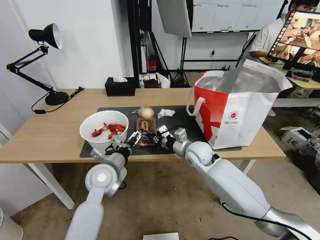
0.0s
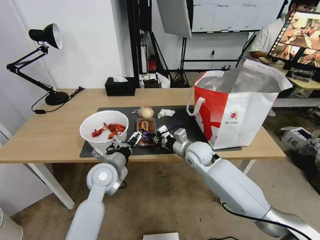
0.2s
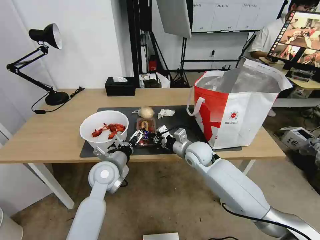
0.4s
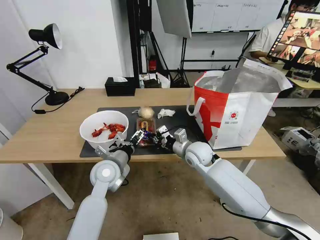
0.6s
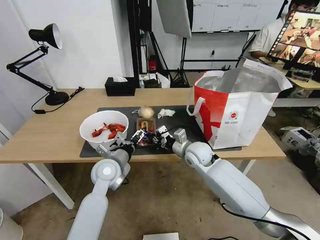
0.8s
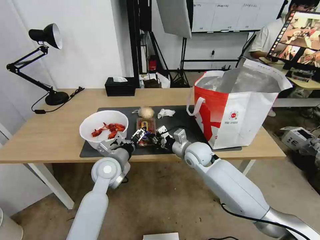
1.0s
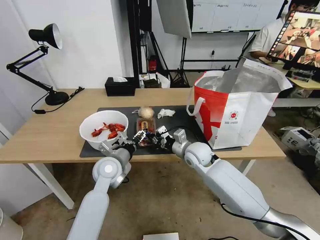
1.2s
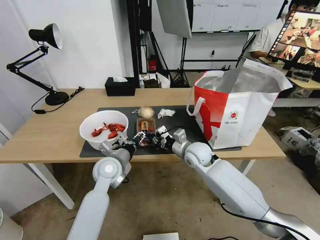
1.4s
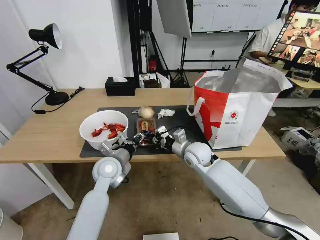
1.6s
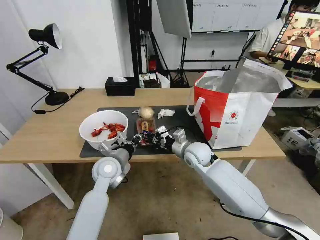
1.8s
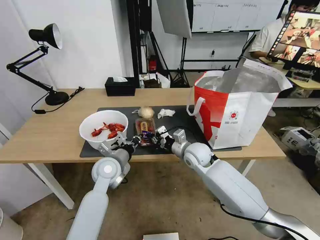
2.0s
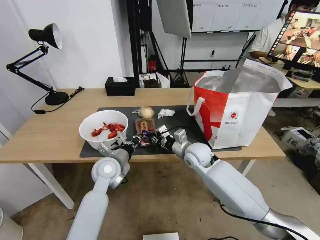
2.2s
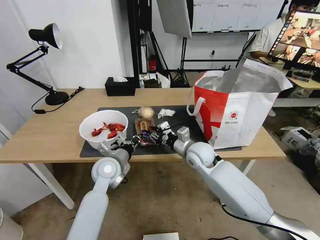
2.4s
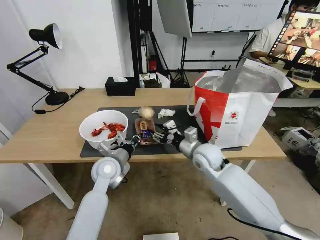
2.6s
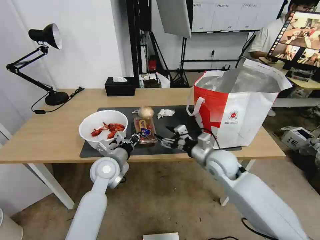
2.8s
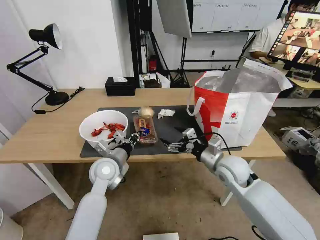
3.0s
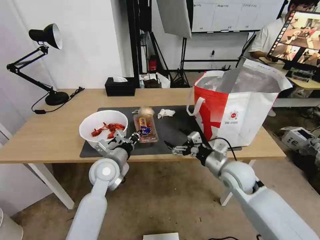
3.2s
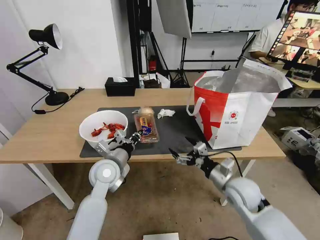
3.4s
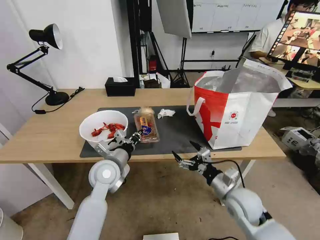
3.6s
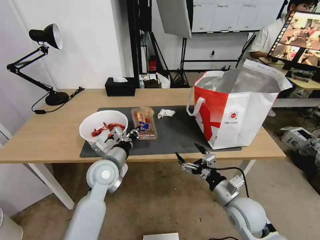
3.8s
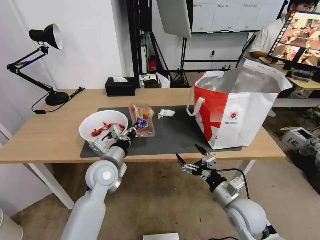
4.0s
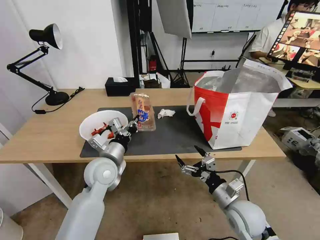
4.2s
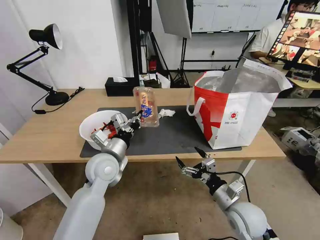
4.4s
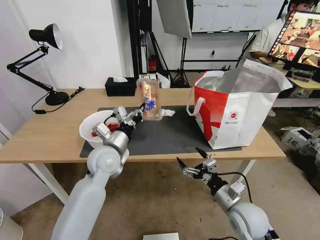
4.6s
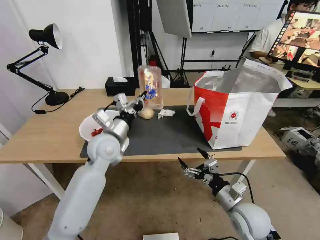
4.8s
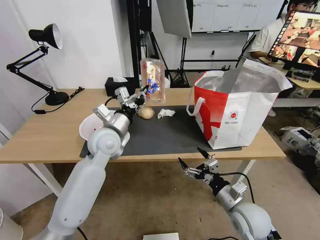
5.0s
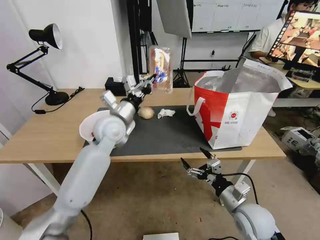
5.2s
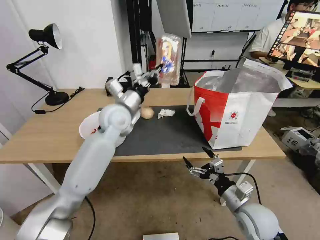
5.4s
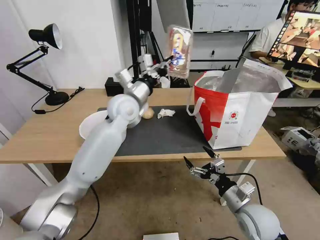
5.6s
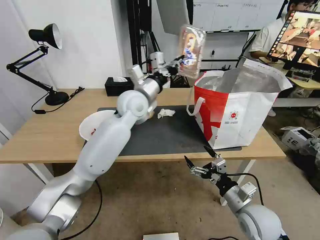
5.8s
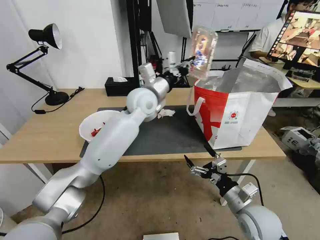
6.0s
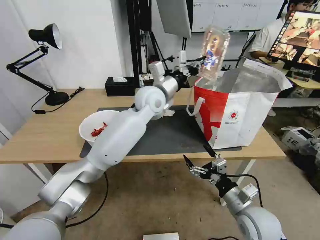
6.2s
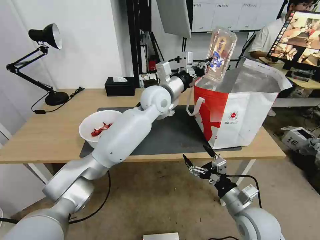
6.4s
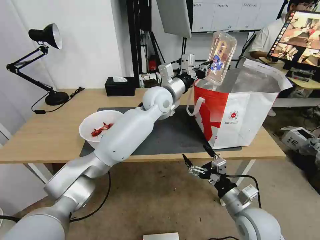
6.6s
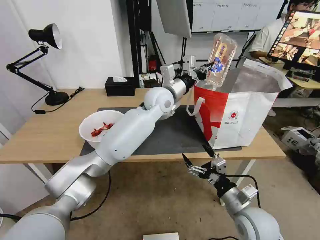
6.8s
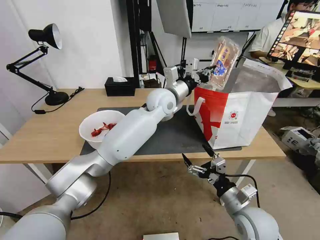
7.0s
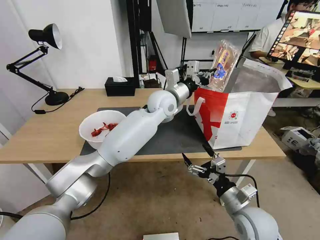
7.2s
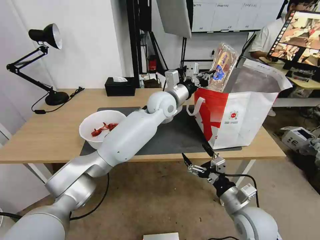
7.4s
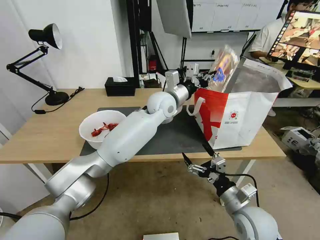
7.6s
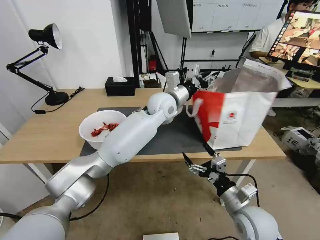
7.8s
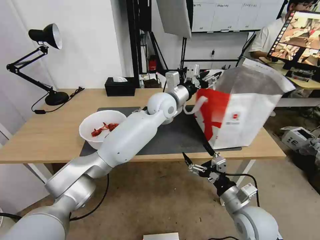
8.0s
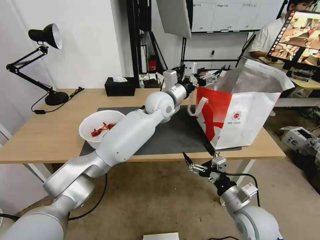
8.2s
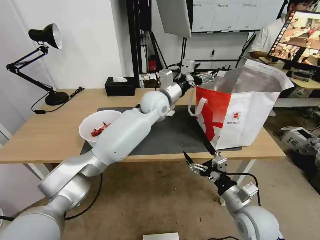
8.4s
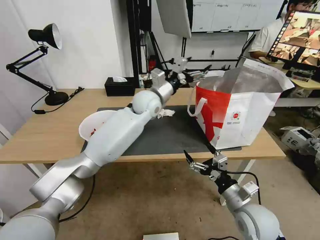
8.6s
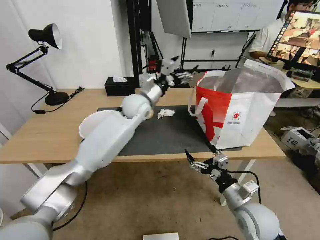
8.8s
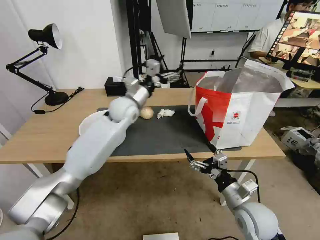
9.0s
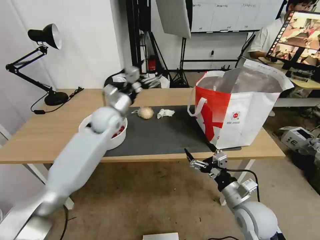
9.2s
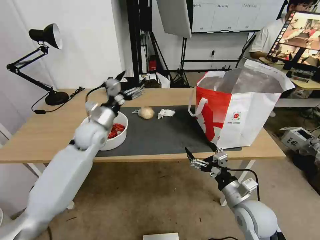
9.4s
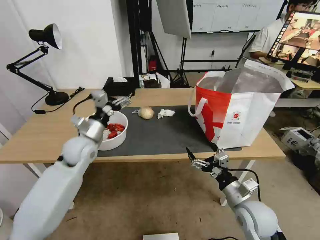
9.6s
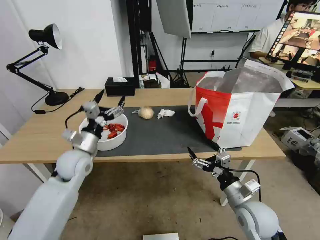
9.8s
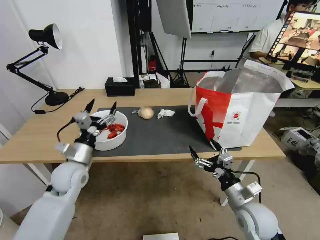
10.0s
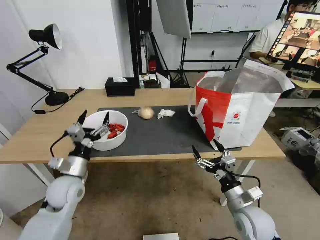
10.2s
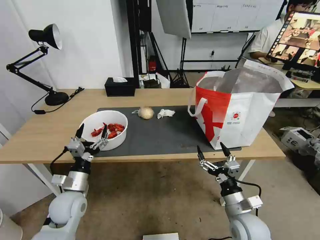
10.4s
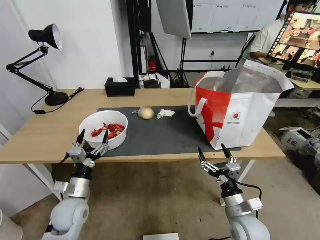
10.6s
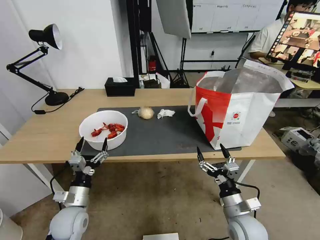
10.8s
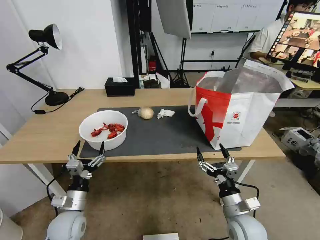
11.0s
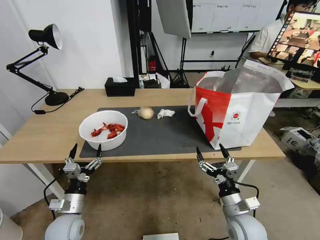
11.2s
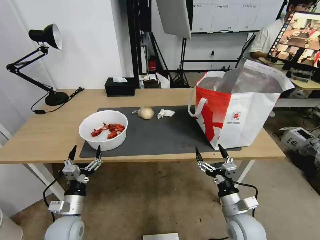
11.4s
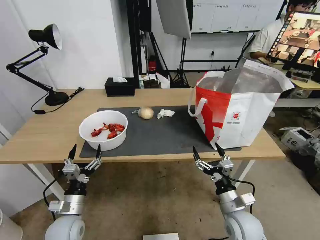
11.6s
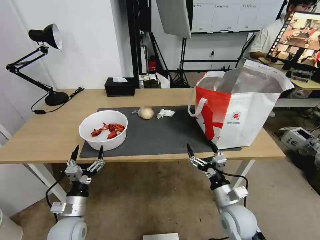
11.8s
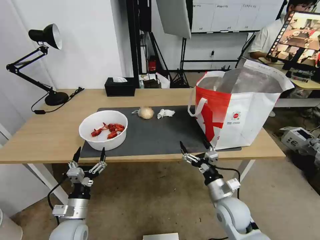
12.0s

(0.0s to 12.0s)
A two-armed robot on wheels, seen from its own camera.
Task of the whole recording: Pick up the trash from the table and place it into the takeout bag.
0.0s - 1.6s: The left gripper closes.
1.6s - 3.0s: The left gripper closes. Meanwhile the right gripper heads to the right and backward, covering roughly 10 cm, and opens up.
3.0s - 4.4s: The right gripper heads backward and downward, covering about 15 cm.
4.4s - 6.0s: The left gripper moves forward, upward and to the right, approximately 25 cm.
6.0s - 7.6s: The left gripper heads to the right, covering approximately 5 cm.
7.6s - 9.0s: The left gripper goes roughly 10 cm to the left, and opens.
9.0s - 10.4s: The left gripper is displaced backward, to the left and downward by some 35 cm.
10.4s - 12.0s: The left gripper goes some 10 cm backward and downward.

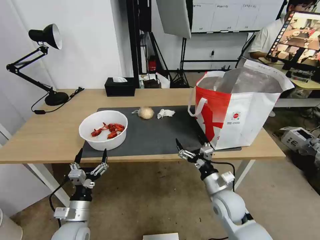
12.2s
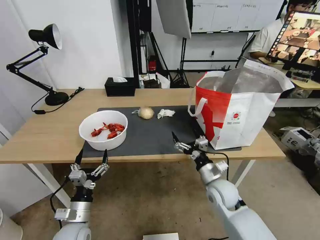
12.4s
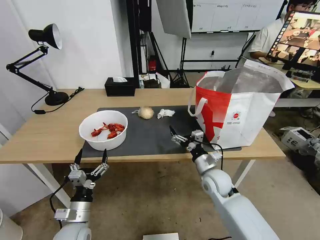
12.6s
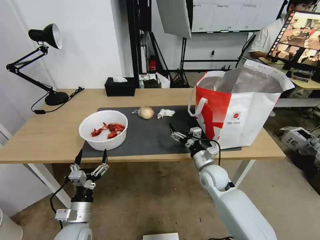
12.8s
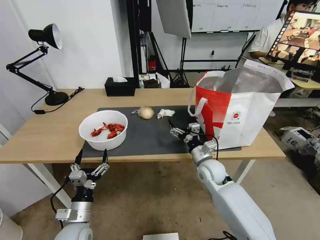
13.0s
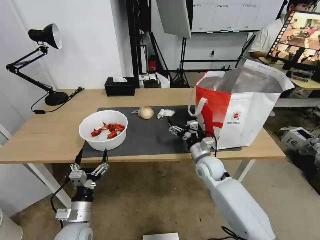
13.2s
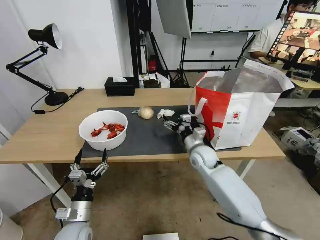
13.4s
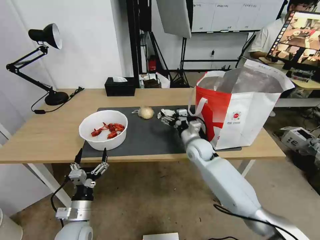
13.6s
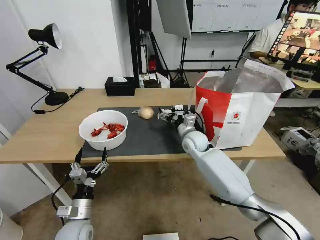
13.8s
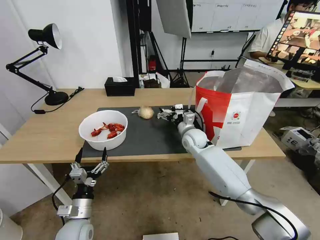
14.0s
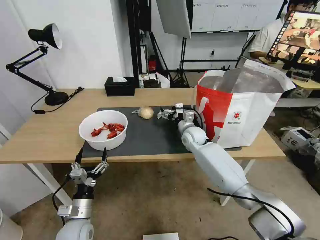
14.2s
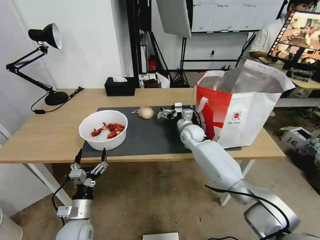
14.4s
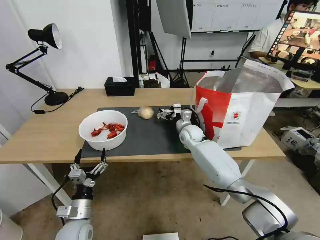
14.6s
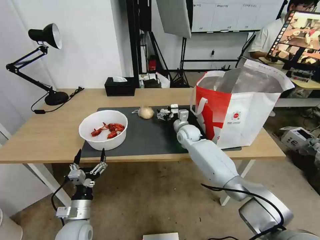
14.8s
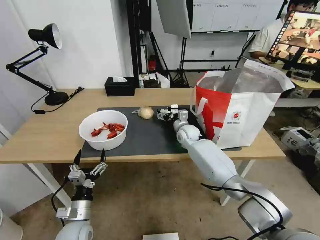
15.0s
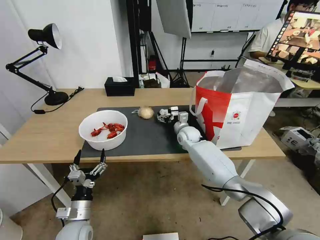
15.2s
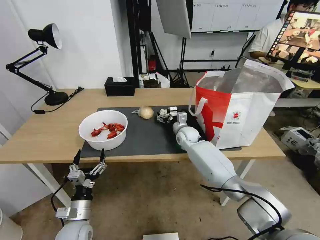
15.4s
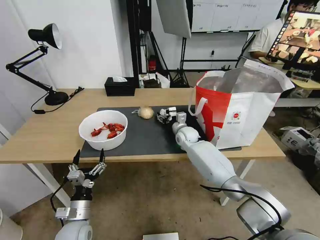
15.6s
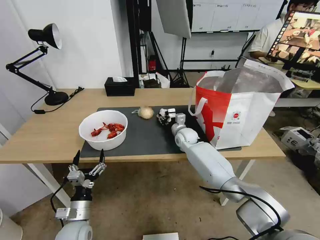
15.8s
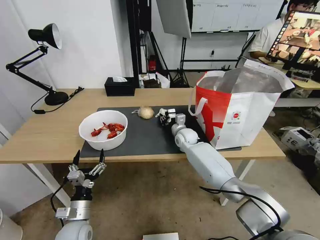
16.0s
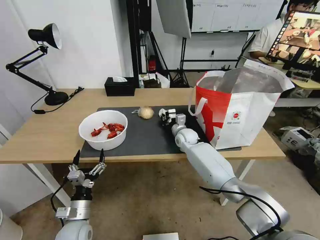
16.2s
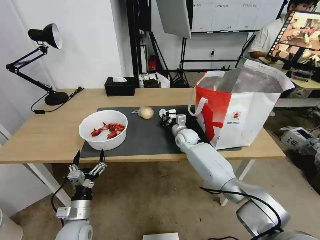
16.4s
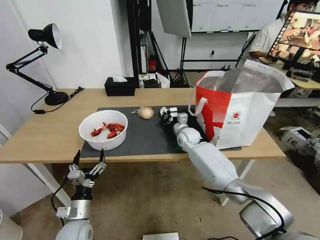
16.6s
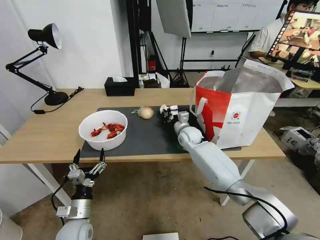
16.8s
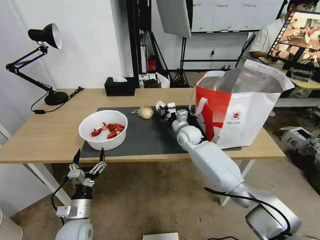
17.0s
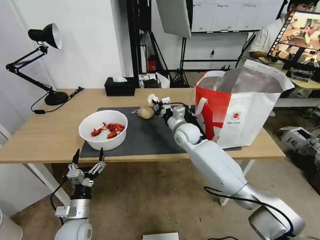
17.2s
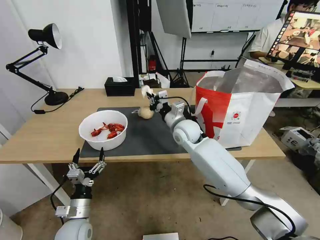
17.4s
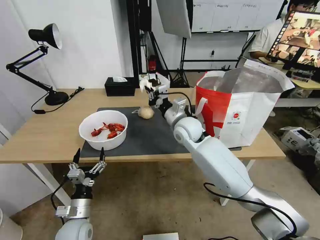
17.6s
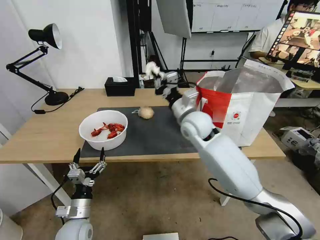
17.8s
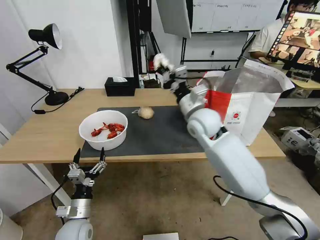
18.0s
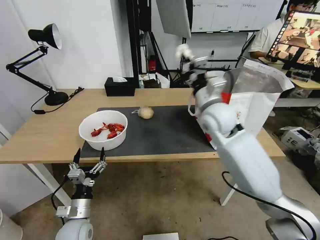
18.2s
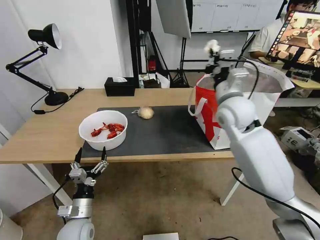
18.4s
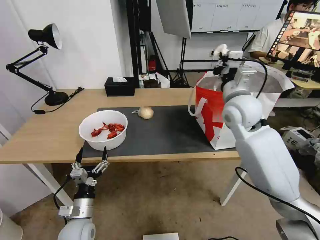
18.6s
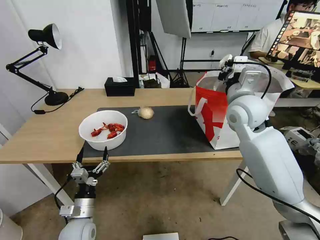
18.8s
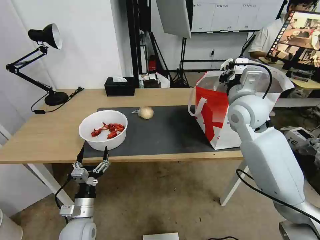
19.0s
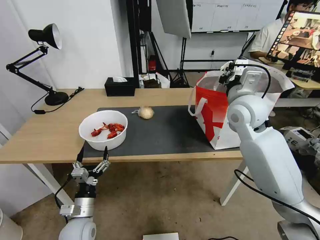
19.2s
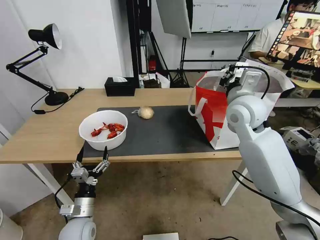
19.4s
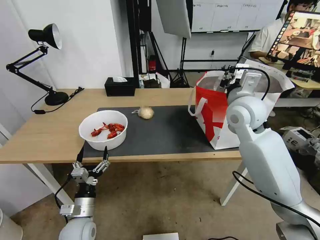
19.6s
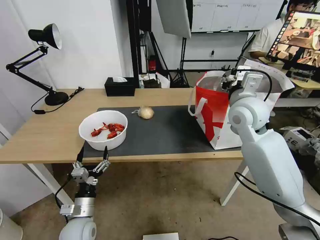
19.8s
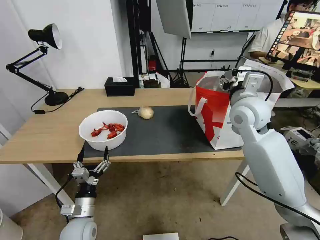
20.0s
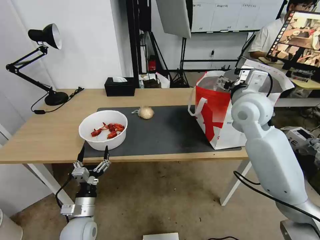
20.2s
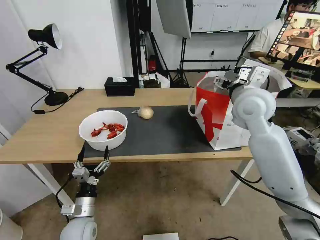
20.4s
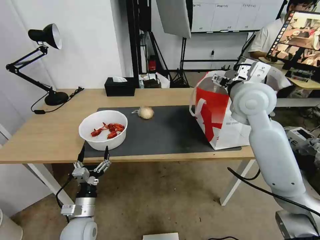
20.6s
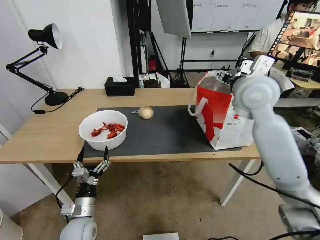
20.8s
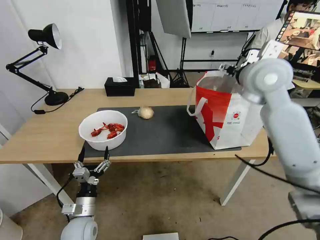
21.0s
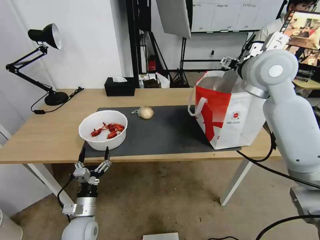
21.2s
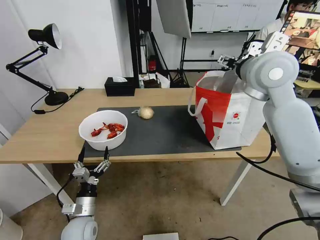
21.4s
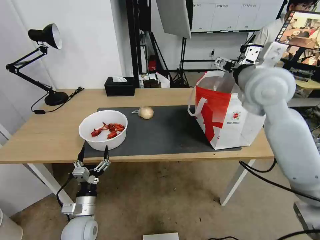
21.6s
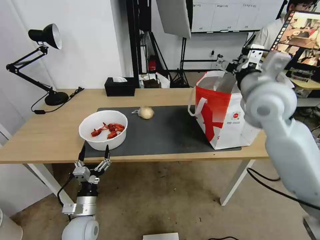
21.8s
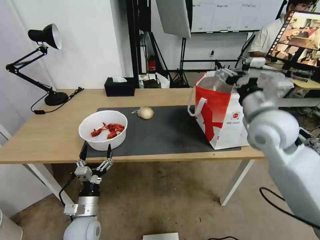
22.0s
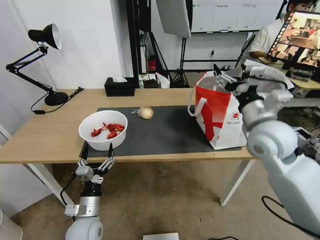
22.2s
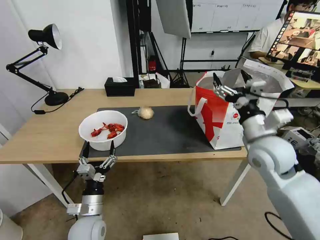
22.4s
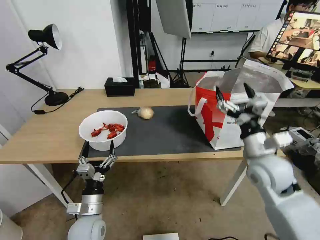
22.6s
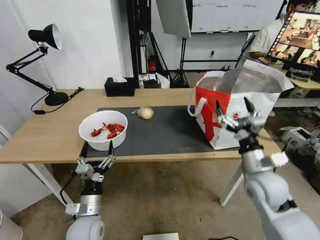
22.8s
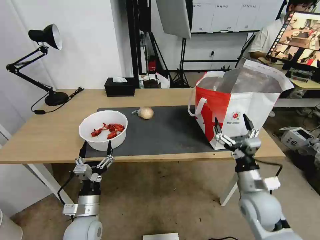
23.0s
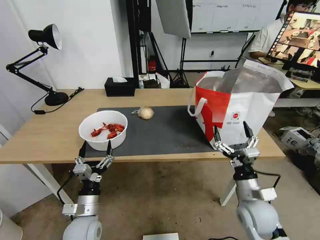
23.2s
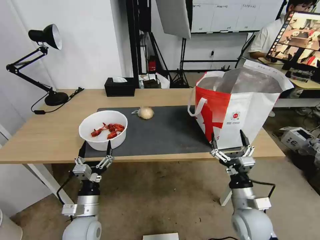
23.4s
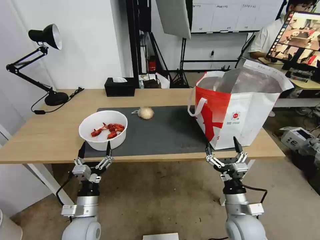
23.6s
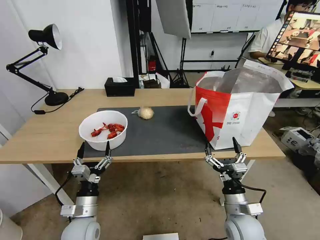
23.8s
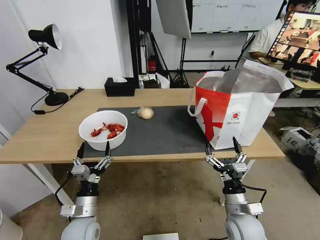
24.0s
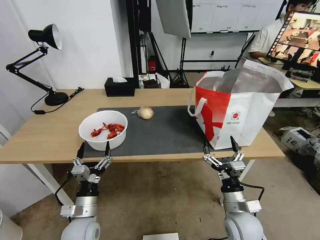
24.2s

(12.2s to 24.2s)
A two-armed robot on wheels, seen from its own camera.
Task of the whole recording: Pick up the trash from the table and place it into the takeout bag.
12.2s - 13.8s: The right gripper travels forward by about 25 cm.
13.8s - 15.2s: The right gripper shifts about 10 cm forward.
15.2s - 16.6s: The right gripper closes up.
16.6s - 18.2s: The right gripper is displaced upward and backward by approximately 25 cm.
18.2s - 19.8s: The right gripper is displaced to the right by some 5 cm, and opens.
19.8s - 21.2s: The right gripper moves upward, about 10 cm, and opens.
21.2s - 22.6s: The right gripper goes approximately 25 cm downward and backward.
22.6s - 24.2s: The right gripper travels downward and backward by roughly 20 cm.
